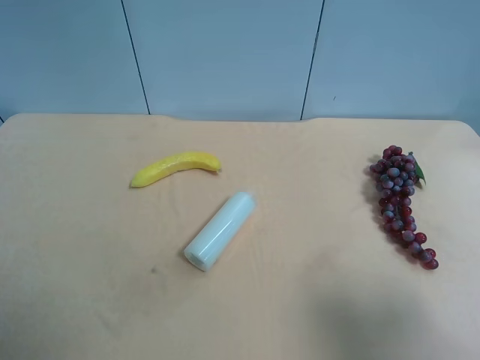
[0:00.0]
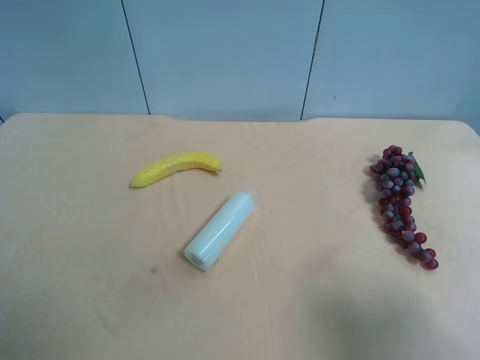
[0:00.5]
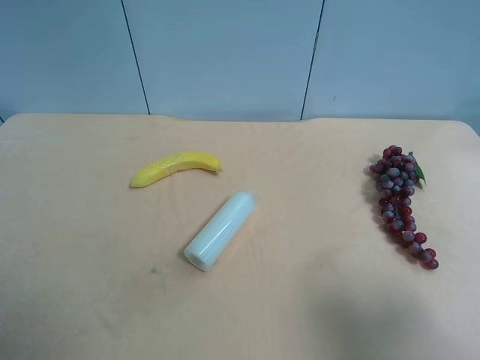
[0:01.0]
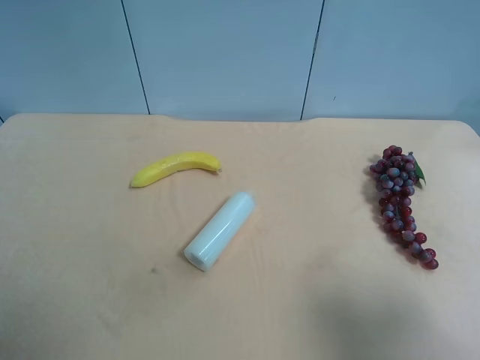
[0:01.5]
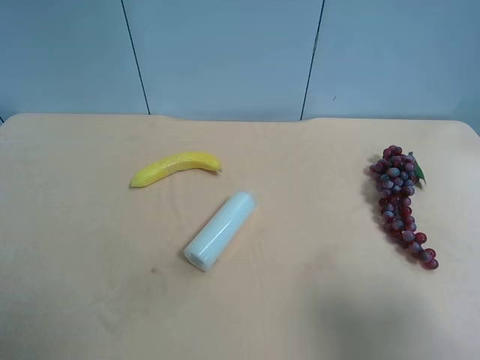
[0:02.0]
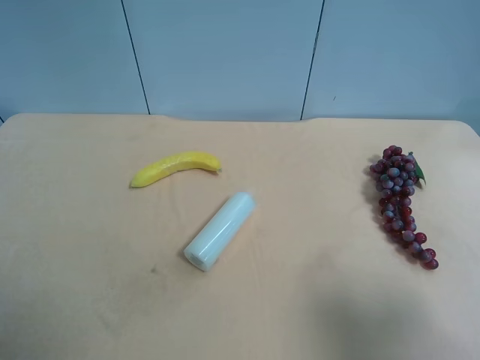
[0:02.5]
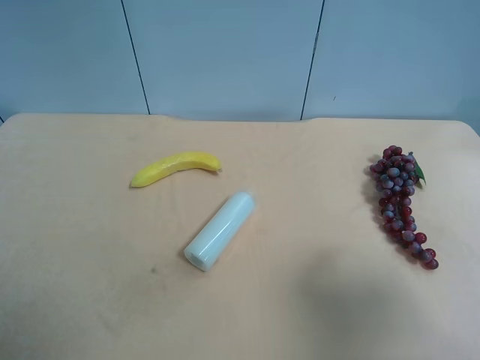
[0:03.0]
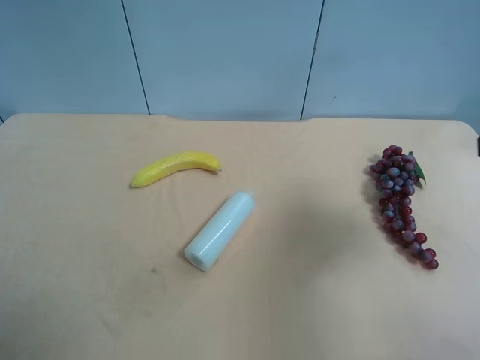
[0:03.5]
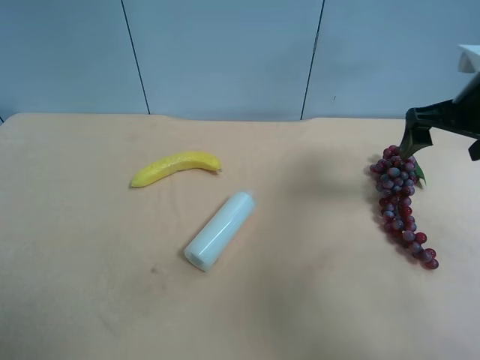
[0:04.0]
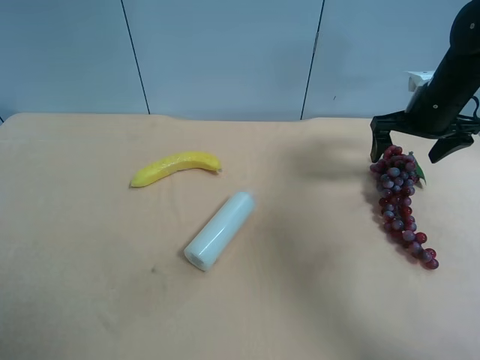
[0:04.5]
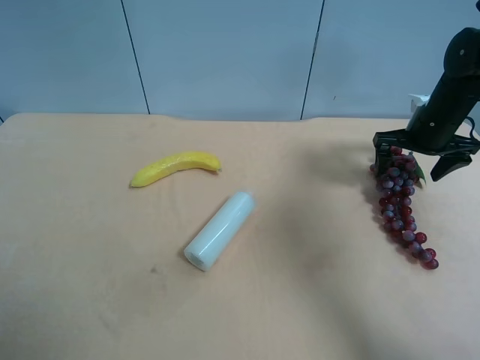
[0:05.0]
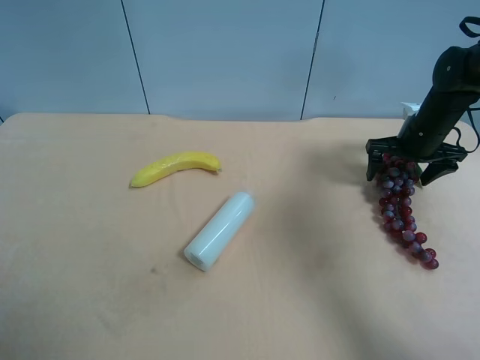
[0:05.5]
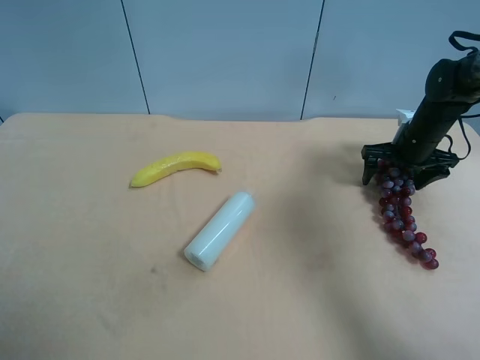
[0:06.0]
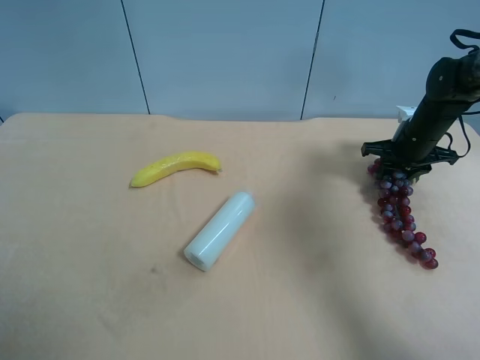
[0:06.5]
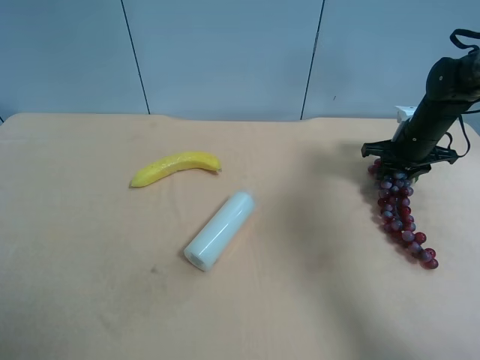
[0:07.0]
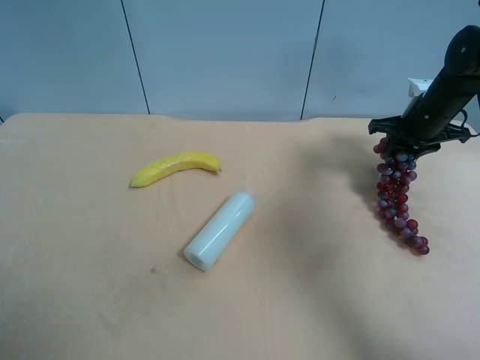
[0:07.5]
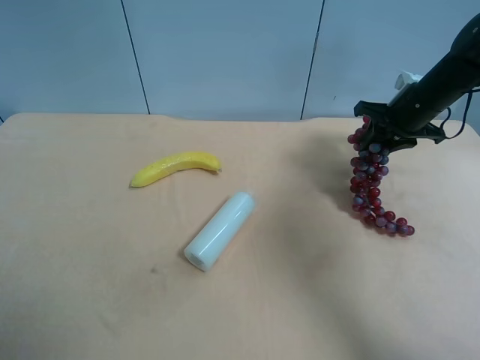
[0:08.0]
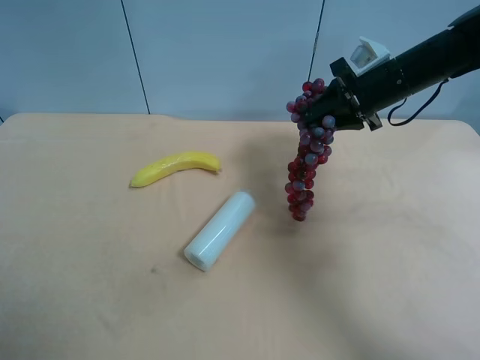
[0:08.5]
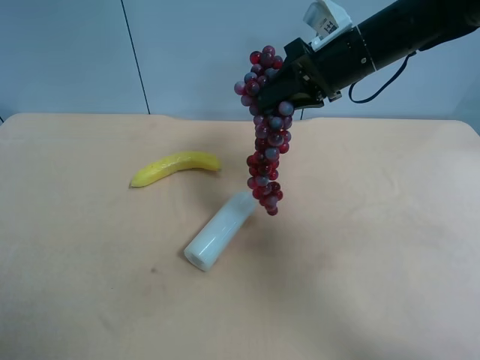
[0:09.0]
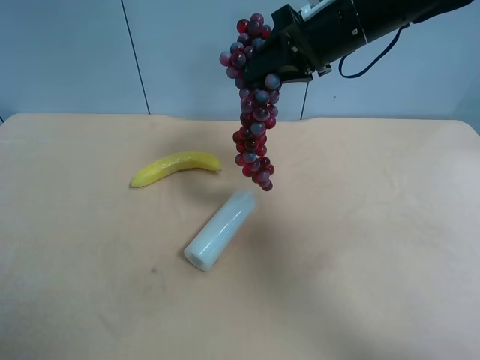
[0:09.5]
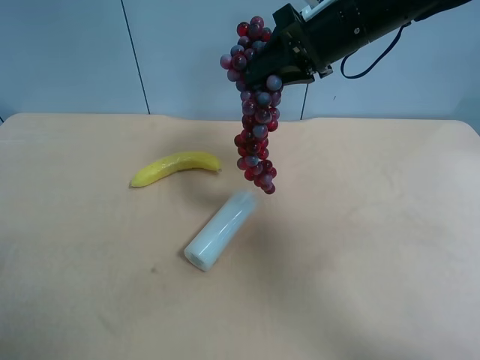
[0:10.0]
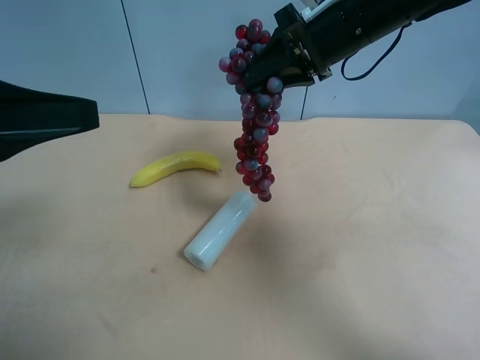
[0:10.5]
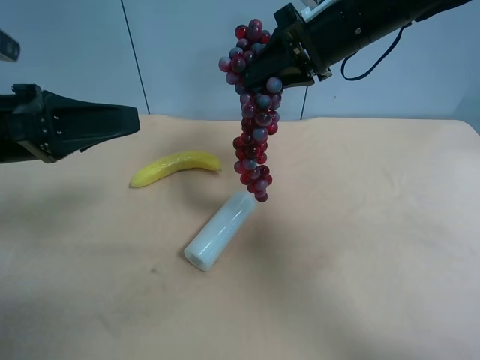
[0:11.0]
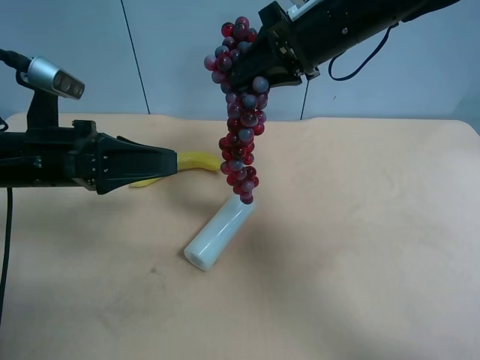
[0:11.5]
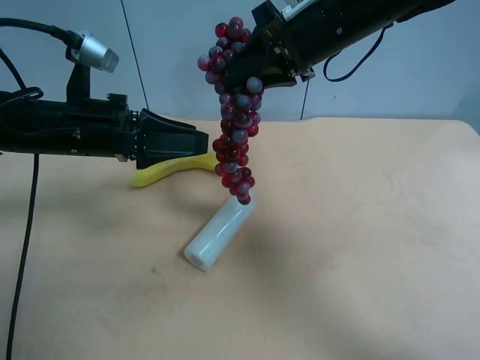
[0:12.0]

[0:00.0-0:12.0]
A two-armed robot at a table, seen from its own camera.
Task of the whole recording: use the right gripper to pick up the item and transfer it from the right gripper to the left gripper.
0:00.0 to 0:02.0: The two grippers keep their place.
0:02.0 to 0:04.0: The right gripper travels forward by roughly 30 cm.
0:04.0 to 0:06.0: The right gripper moves downward and forward, roughly 15 cm.
0:06.0 to 0:08.0: The right gripper travels upward by roughly 5 cm, and closes up.
0:08.0 to 0:10.0: The left gripper is displaced forward by roughly 10 cm; the right gripper goes about 20 cm to the left and upward.
0:10.0 to 0:12.0: The left gripper goes approximately 25 cm forward, downward and to the right.

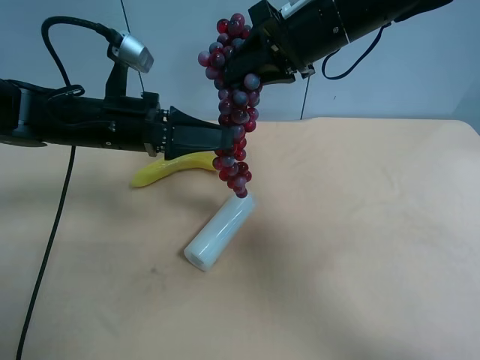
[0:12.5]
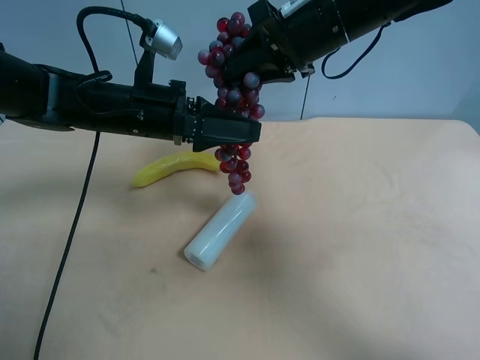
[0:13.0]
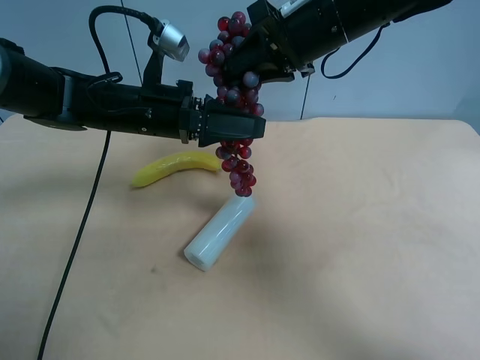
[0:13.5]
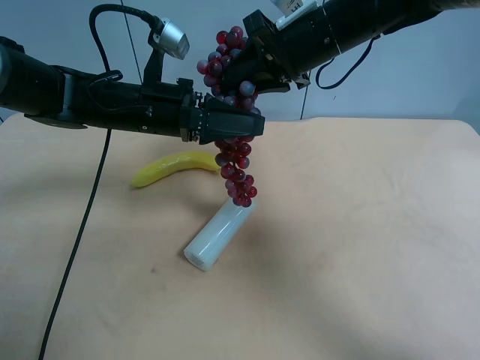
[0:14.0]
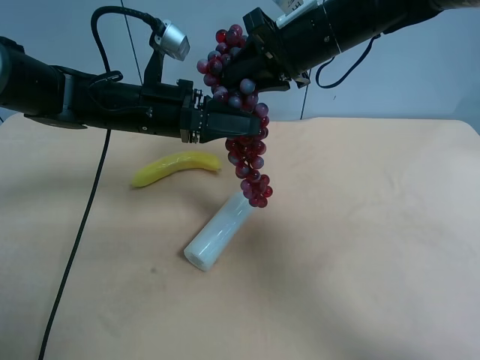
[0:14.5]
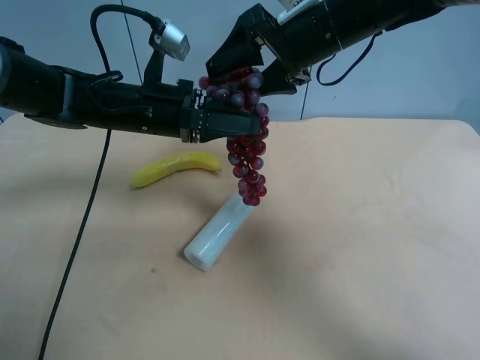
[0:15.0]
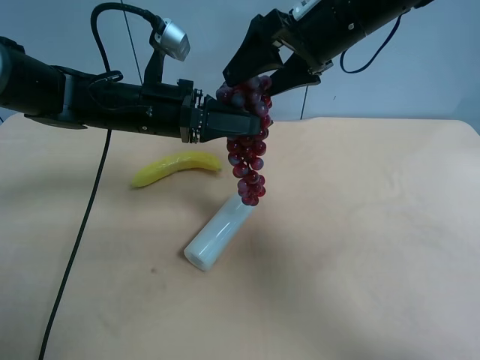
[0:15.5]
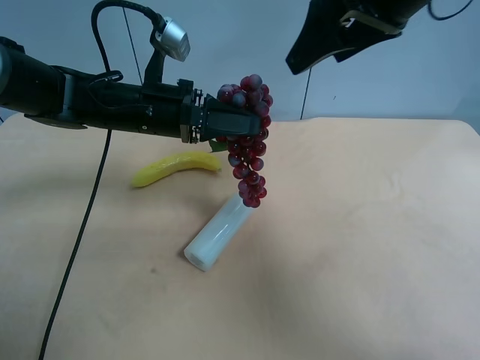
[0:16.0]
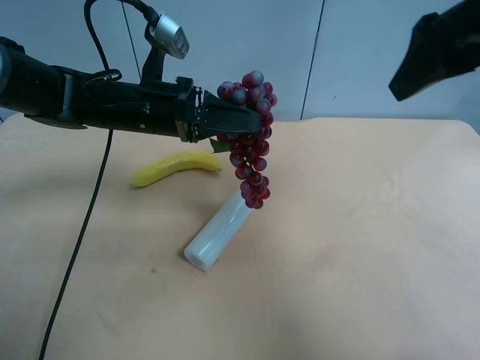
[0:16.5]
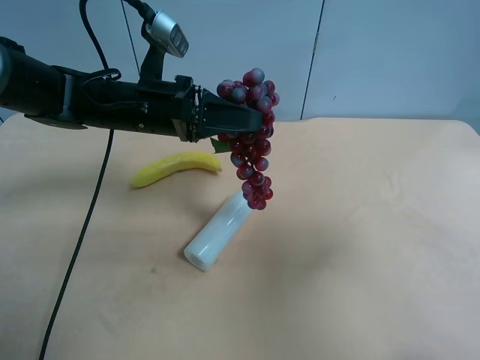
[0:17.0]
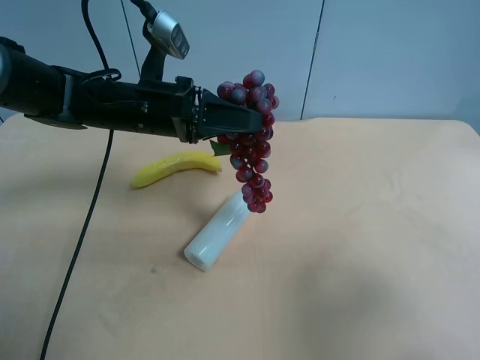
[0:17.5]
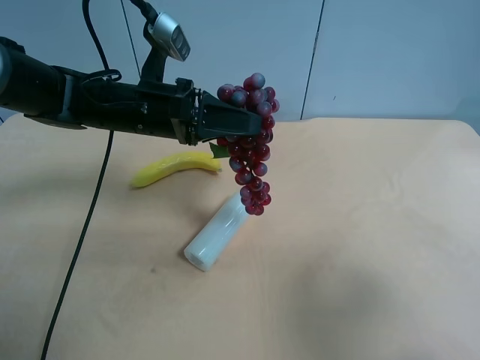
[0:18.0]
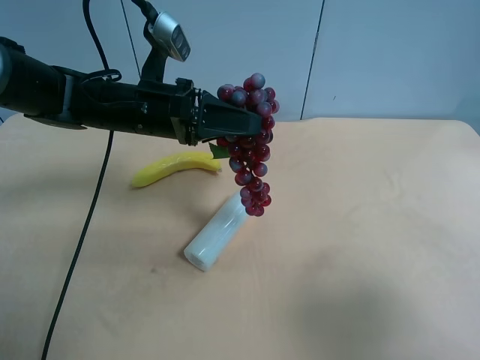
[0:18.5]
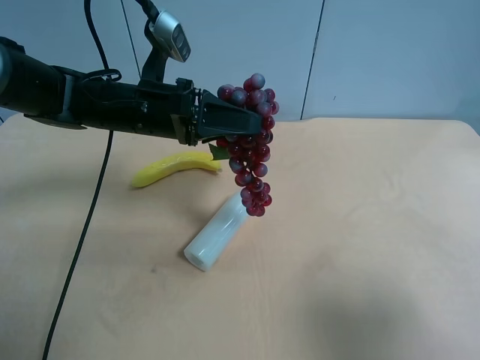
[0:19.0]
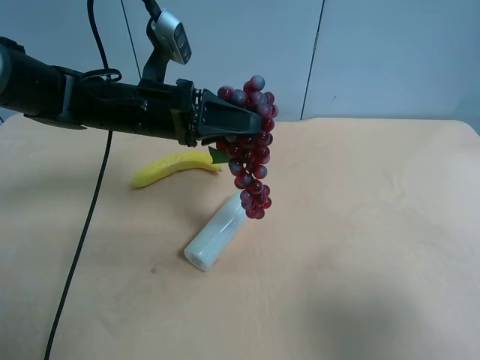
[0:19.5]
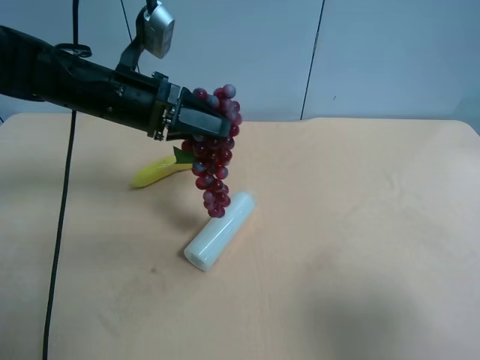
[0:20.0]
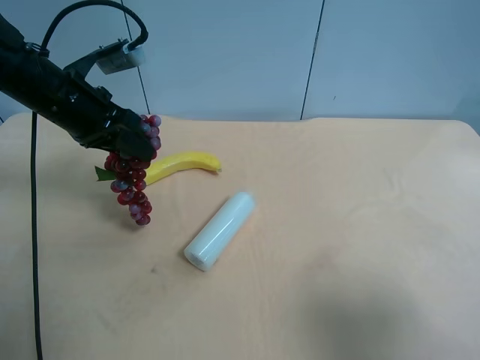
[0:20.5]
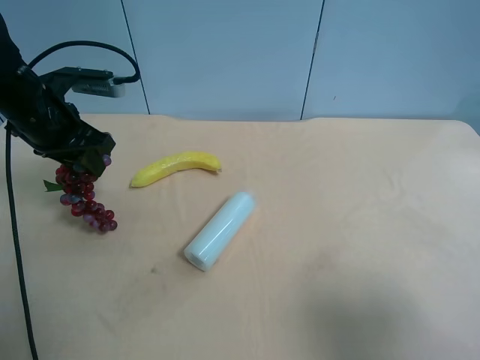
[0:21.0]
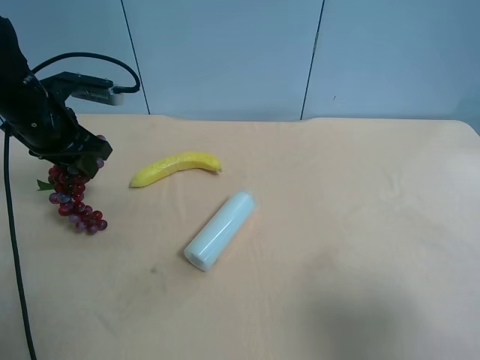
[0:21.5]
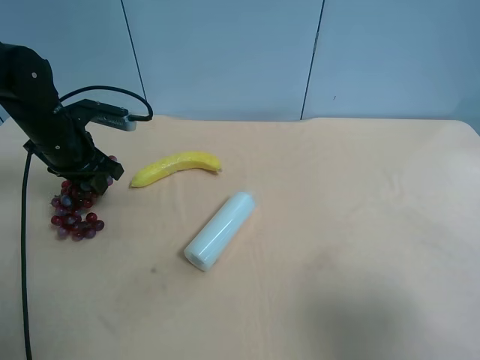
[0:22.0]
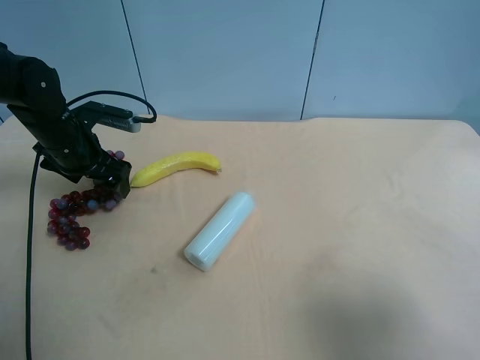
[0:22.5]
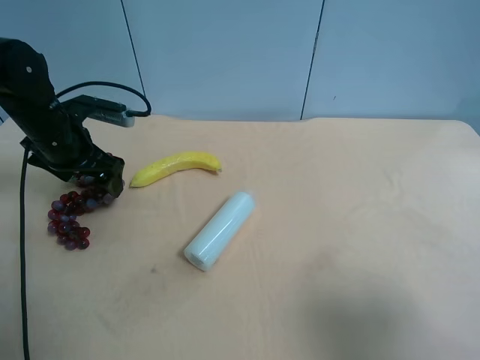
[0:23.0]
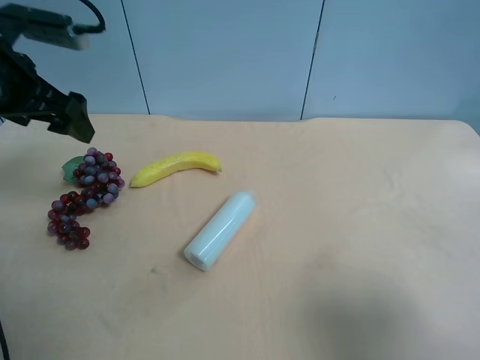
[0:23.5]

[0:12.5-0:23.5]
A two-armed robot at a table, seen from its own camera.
Task of the whole recording: use the right gripper to pick up the item and transfer it from the right gripper to the left gripper.
0:12.5 to 0:14.5: The left gripper closes its fingers.
0:14.5 to 0:16.0: The right gripper shifts about 10 cm upward, backward and to the right, and opens up.
0:16.0 to 0:18.0: The right gripper shifts approximately 30 cm backward and to the right.
0:18.0 to 0:20.0: The left gripper ends up about 5 cm from where it was.
0:20.0 to 0:21.5: The left gripper goes approximately 10 cm to the left.
0:21.5 to 0:23.5: The left gripper shifts approximately 10 cm upward, and opens its fingers.
